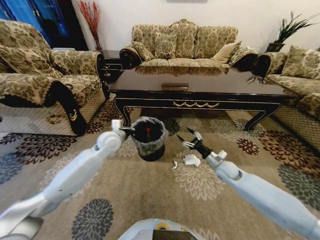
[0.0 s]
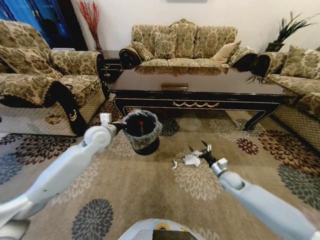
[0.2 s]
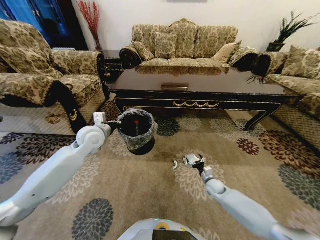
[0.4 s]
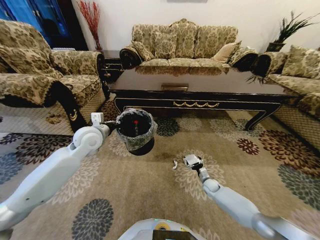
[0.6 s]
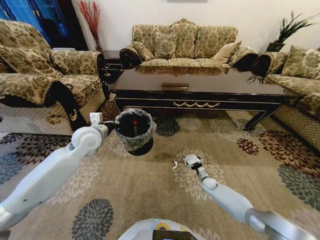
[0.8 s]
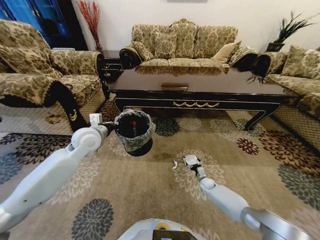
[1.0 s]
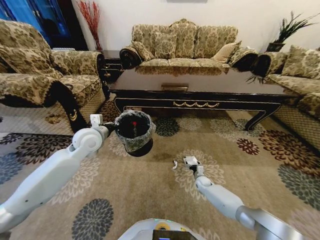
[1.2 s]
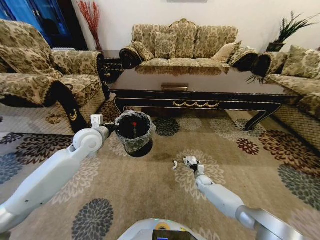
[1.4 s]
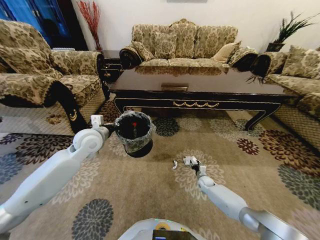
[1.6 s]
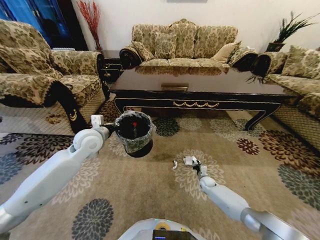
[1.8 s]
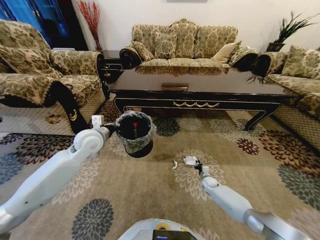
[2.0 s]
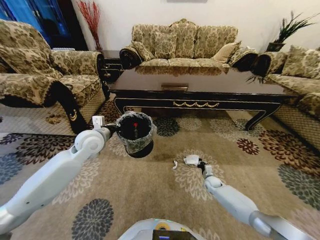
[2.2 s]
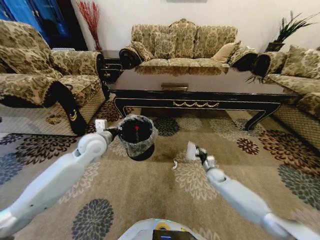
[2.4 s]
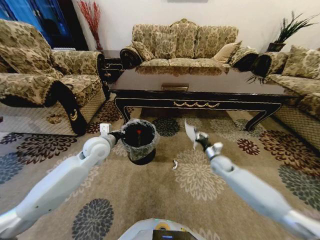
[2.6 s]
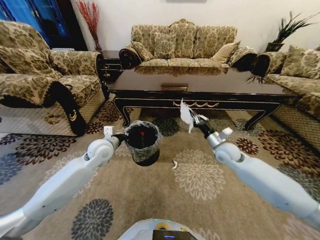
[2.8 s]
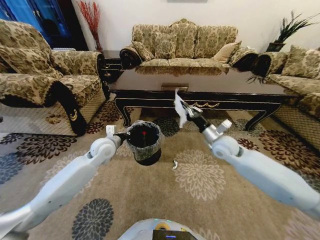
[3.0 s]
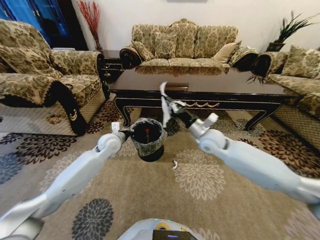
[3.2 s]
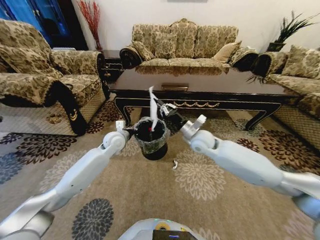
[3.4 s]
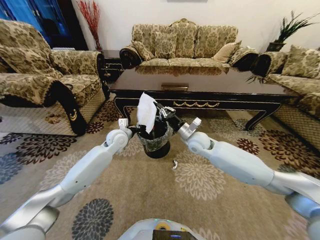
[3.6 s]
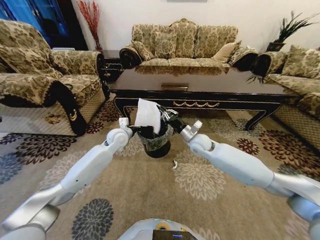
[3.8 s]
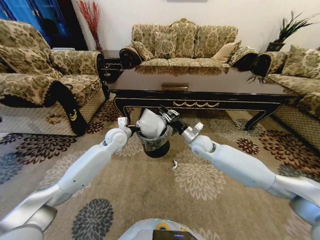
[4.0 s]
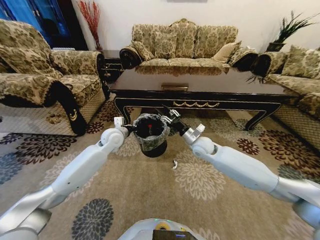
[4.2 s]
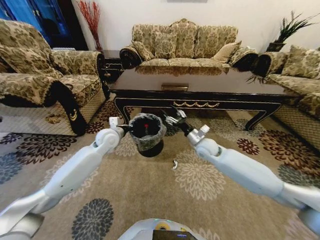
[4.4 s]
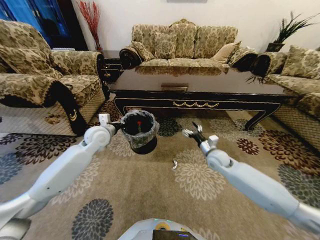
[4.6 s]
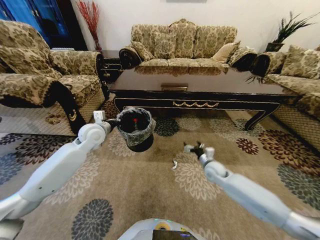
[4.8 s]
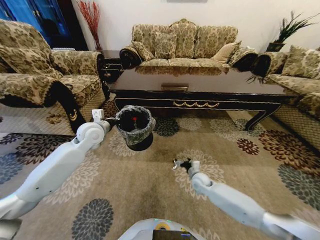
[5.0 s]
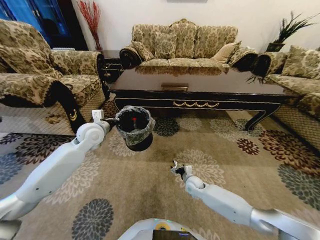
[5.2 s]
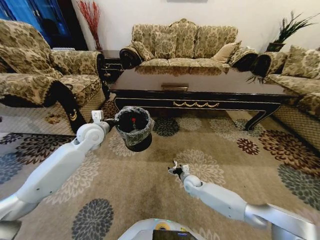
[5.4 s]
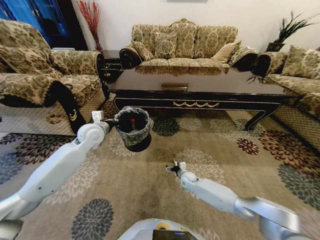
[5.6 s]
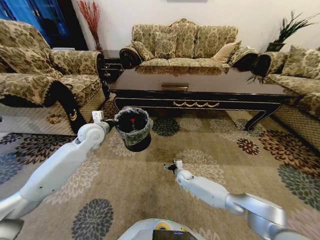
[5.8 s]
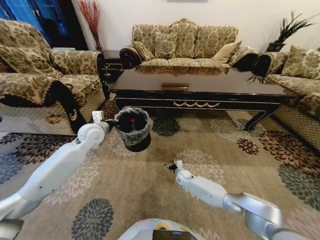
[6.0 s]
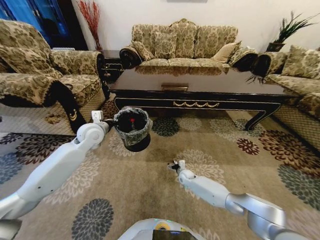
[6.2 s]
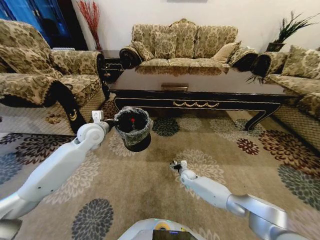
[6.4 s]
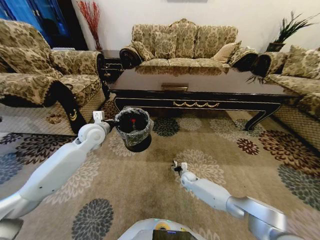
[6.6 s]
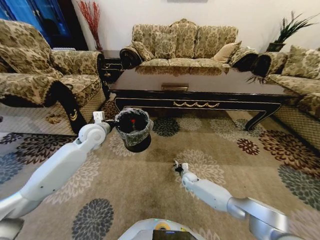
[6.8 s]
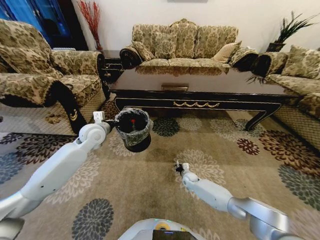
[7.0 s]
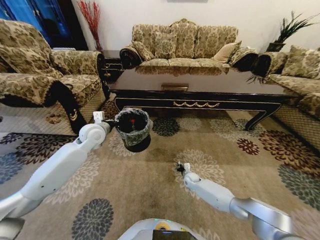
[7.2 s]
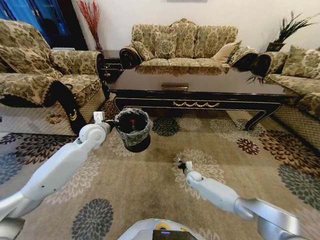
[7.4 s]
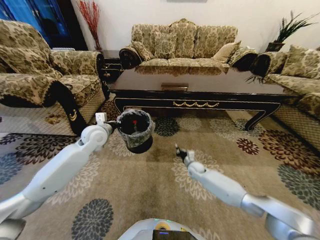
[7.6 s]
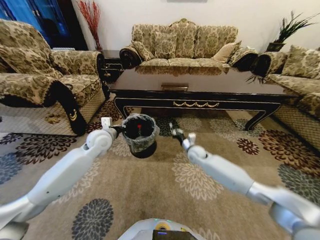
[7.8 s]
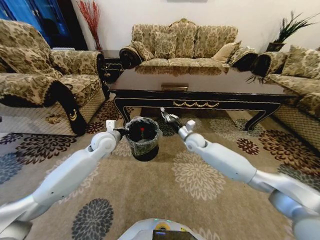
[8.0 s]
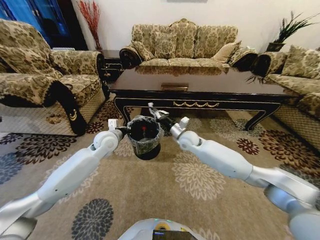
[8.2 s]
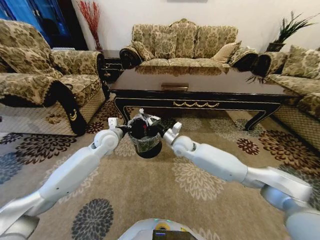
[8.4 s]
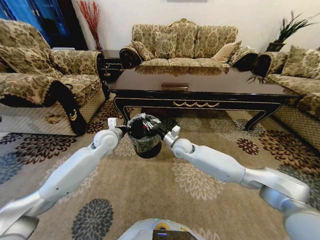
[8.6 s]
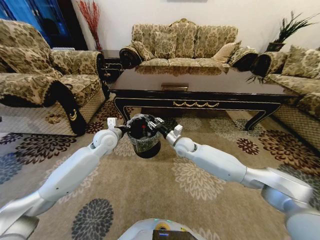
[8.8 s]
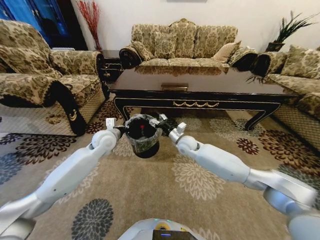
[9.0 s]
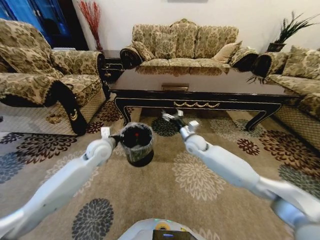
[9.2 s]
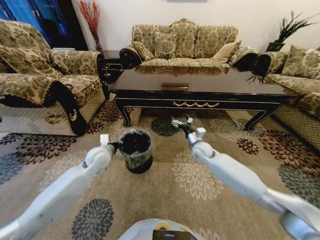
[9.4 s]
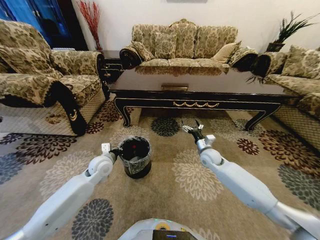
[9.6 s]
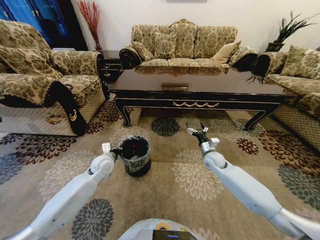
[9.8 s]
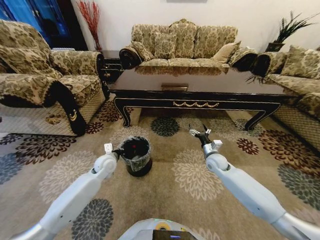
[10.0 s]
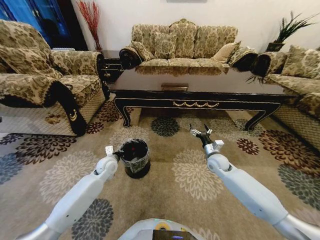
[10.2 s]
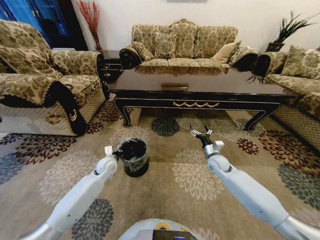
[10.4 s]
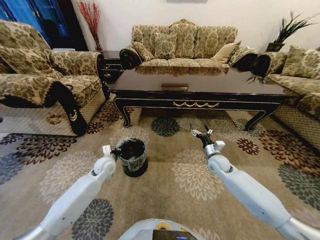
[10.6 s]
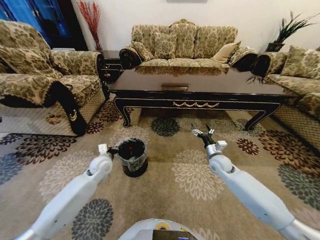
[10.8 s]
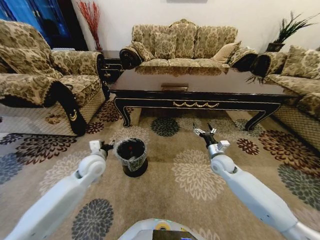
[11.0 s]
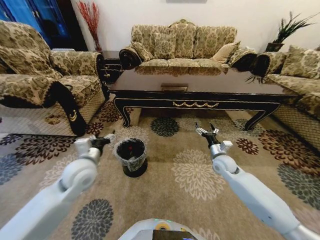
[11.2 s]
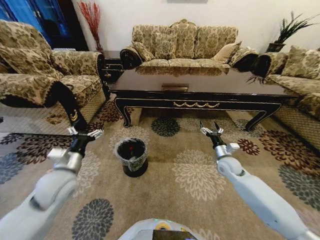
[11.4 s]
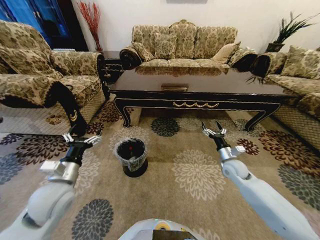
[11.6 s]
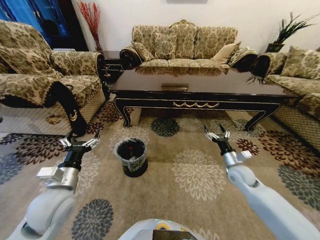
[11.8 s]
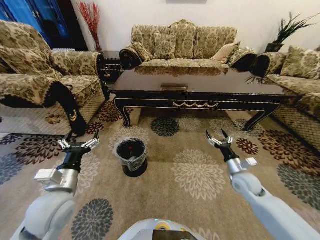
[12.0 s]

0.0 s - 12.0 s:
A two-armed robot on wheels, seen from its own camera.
Task of the whole recording: Move to the front of the table and pick up the trash from the floor, then place it into the trash bin.
0.0 s - 1.6 s: The right gripper heads downward, covering some 20 cm; the left gripper moves about 10 cm.
1.6 s - 3.0 s: The right gripper goes approximately 40 cm upward, and closes its fingers. Meanwhile the left gripper is displaced downward by approximately 5 cm.
3.0 s - 4.4 s: The right gripper shifts some 5 cm downward, and opens its fingers.
4.4 s - 6.0 s: The right gripper moves downward, roughly 30 cm. Meanwhile the left gripper moves to the left, some 5 cm.
6.0 s - 7.6 s: The right gripper shifts some 10 cm upward and to the right, and closes its fingers.
7.6 s - 9.0 s: The right gripper goes approximately 20 cm upward and to the left, and opens its fingers.
9.0 s - 10.4 s: The right gripper goes approximately 20 cm to the right and downward, and opens its fingers, while the left gripper moves downward, some 15 cm.
10.4 s - 12.0 s: The left gripper is displaced backward and upward by roughly 25 cm, and opens; the right gripper travels backward and to the right by roughly 15 cm.

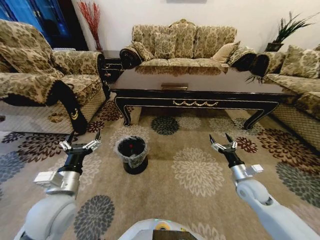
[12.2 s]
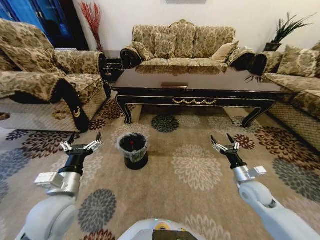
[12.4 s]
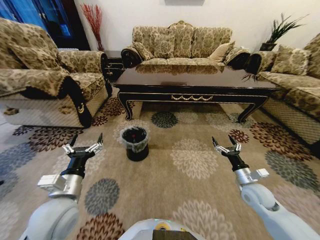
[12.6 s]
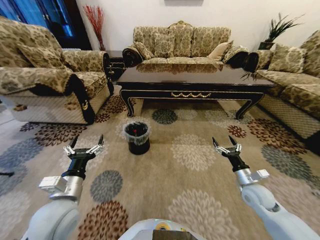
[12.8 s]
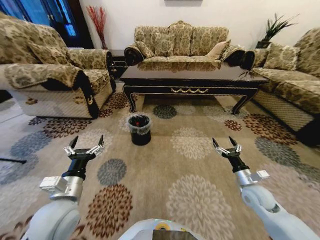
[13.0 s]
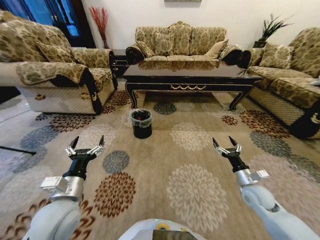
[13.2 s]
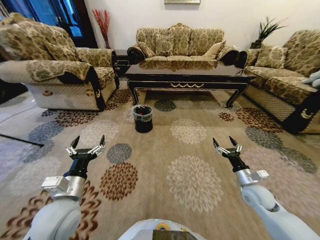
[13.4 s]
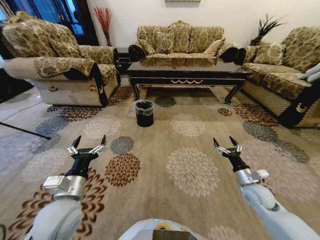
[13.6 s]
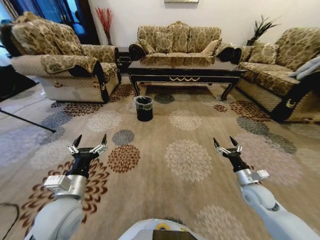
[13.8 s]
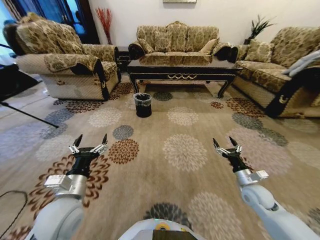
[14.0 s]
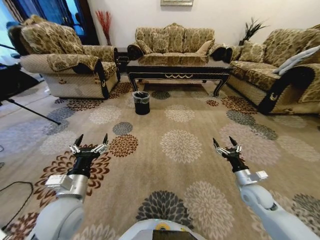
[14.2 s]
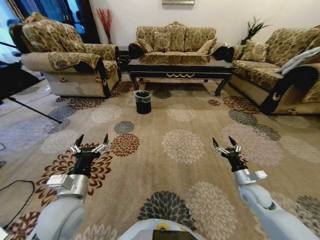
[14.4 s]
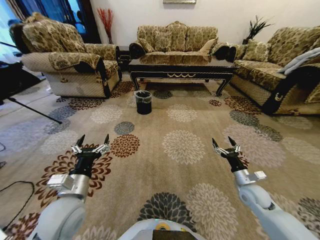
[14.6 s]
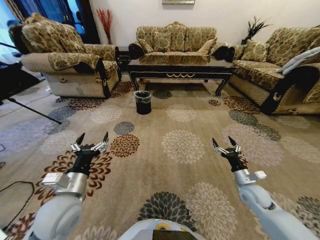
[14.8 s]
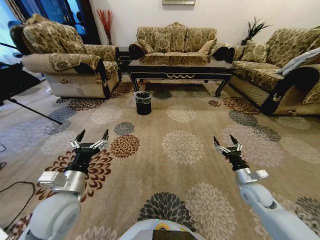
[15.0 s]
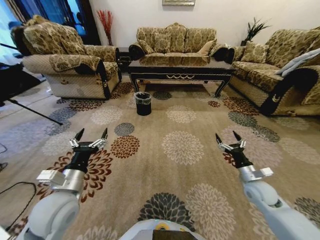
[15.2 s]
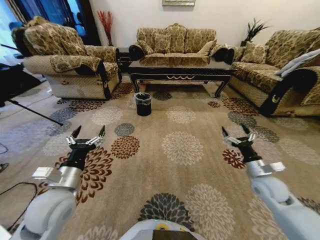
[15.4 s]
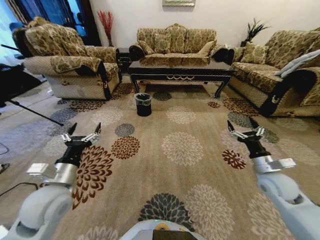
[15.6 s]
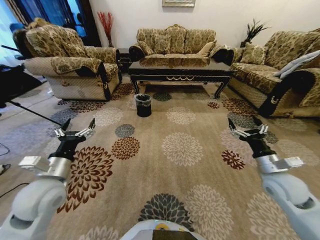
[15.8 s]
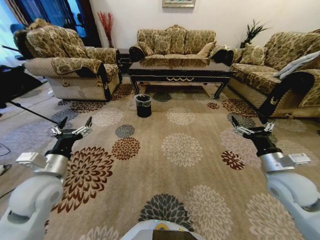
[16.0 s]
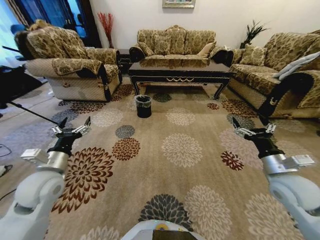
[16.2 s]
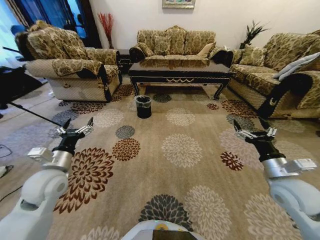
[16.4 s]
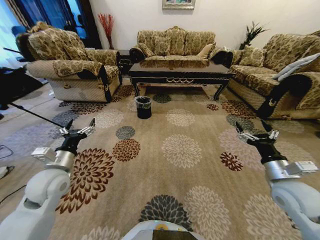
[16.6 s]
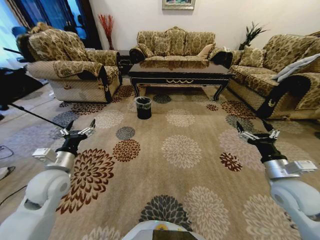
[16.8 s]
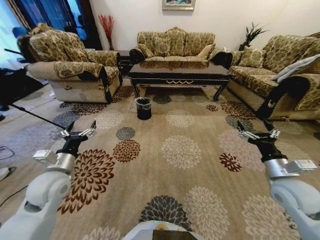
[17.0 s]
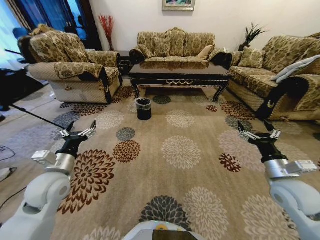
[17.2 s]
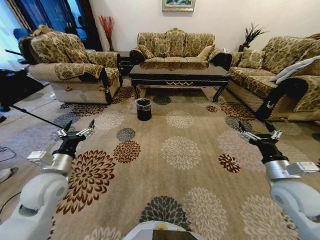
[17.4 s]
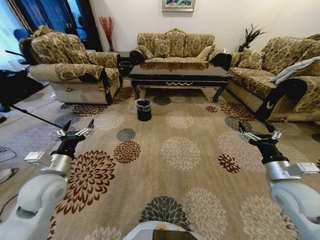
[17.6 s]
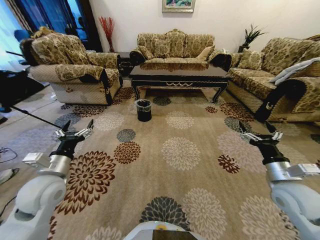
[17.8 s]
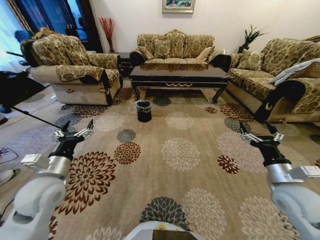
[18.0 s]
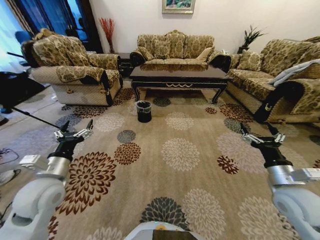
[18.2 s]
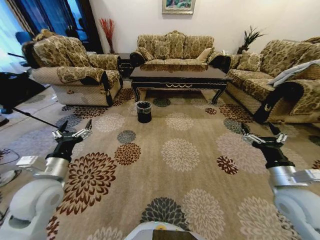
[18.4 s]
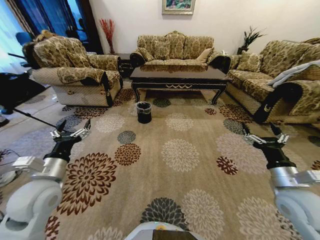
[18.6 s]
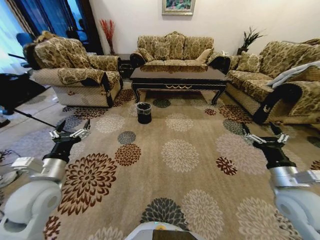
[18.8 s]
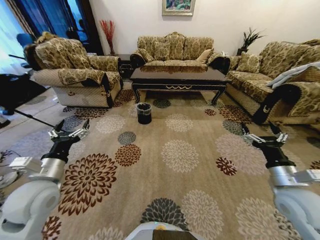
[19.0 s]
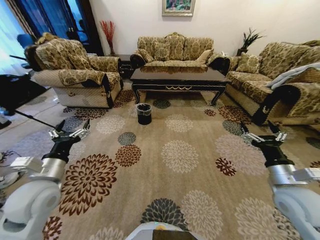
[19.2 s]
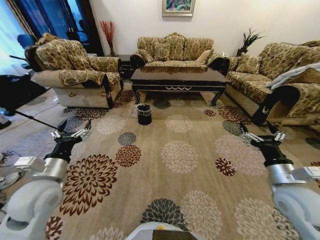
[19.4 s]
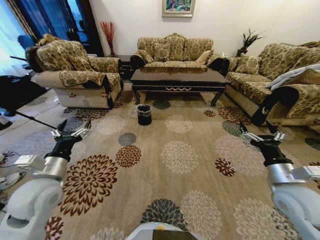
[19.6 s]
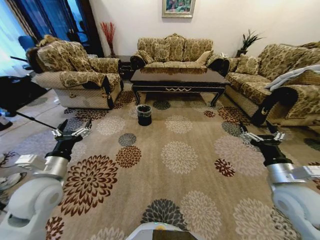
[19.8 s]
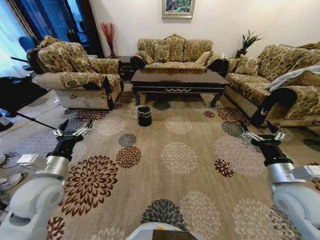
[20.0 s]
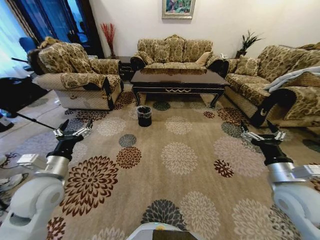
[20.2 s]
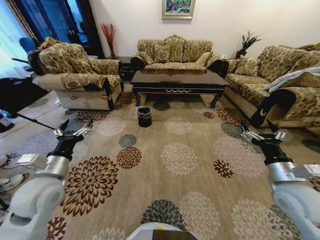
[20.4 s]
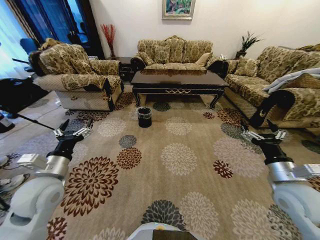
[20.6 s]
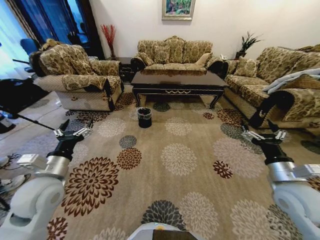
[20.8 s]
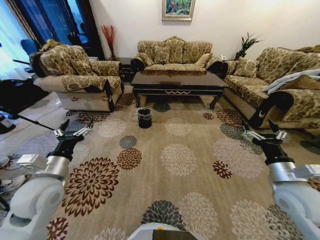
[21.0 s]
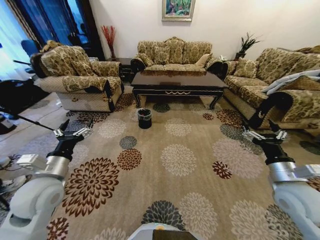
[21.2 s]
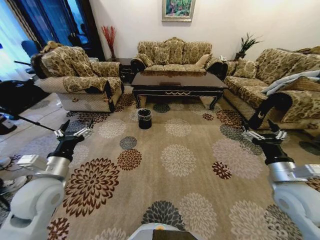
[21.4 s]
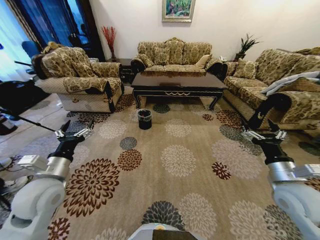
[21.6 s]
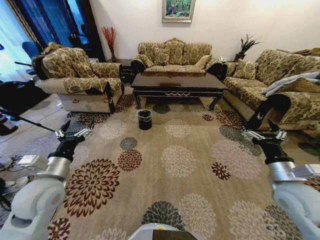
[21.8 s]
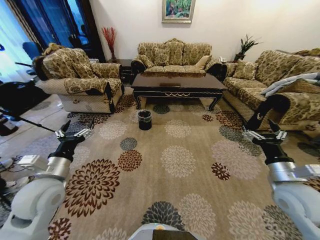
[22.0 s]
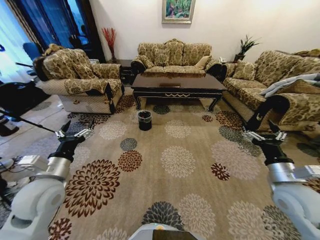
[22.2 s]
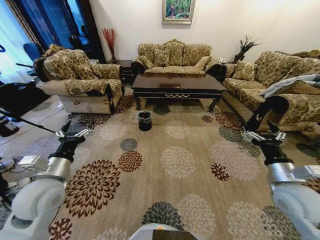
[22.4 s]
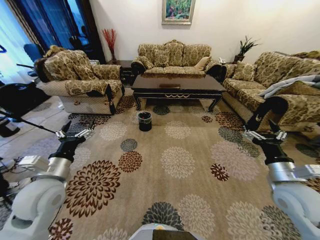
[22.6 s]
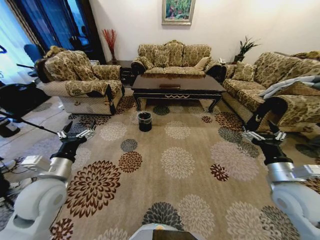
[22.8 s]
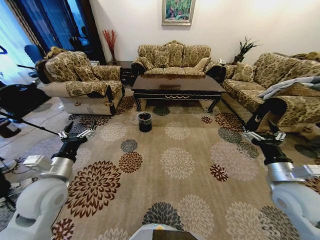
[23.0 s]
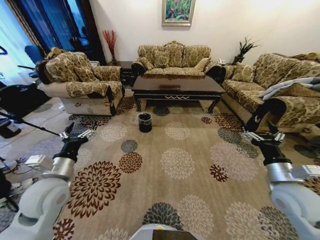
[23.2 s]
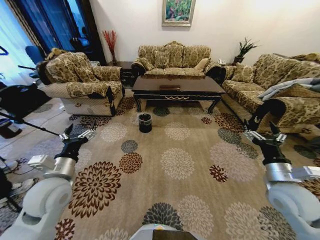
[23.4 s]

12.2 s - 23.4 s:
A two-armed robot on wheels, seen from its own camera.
Task of the whole recording: Move to the front of the table and pick up the trash from the floor, then place it into the trash bin.
13.8 s - 15.4 s: The right gripper shifts approximately 5 cm upward.
15.4 s - 17.0 s: The left gripper moves to the left and forward, some 10 cm; the right gripper goes roughly 5 cm upward.
